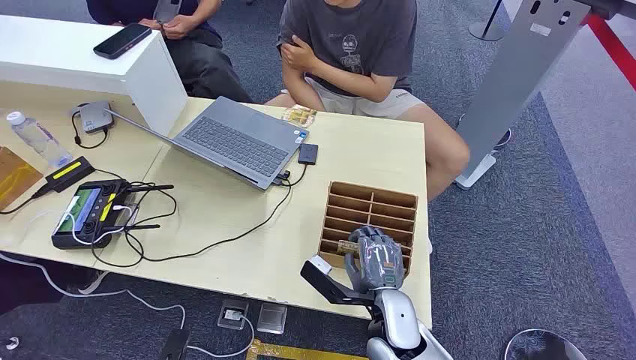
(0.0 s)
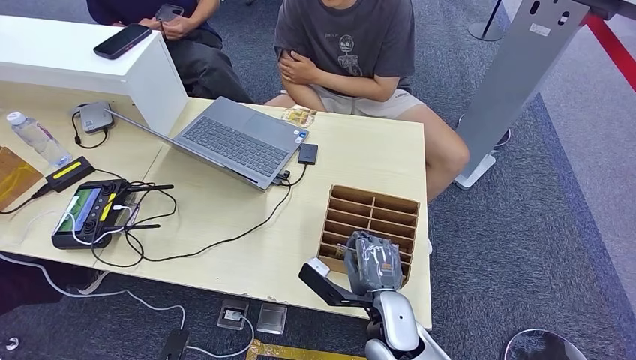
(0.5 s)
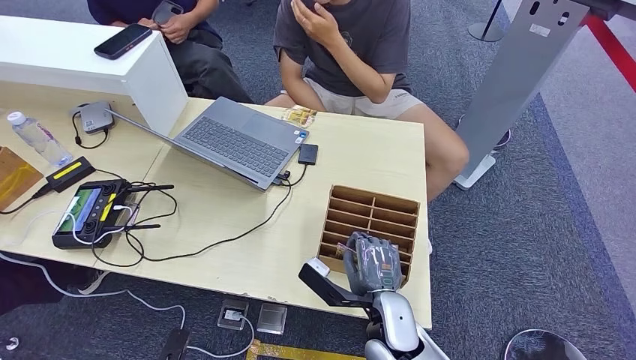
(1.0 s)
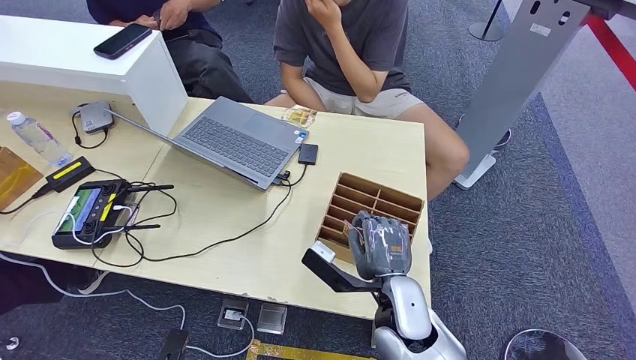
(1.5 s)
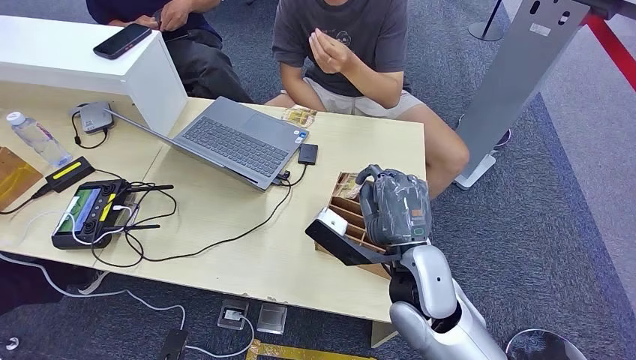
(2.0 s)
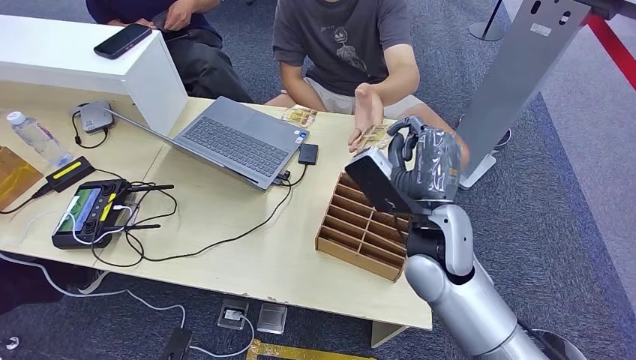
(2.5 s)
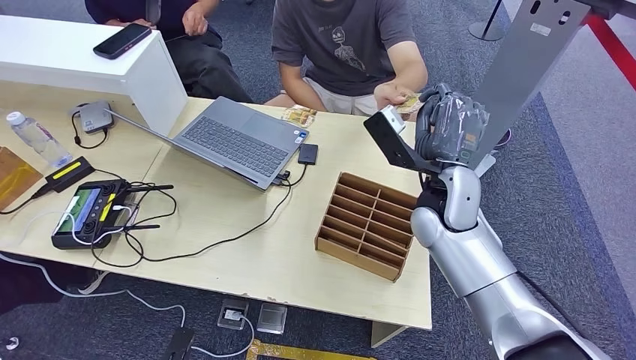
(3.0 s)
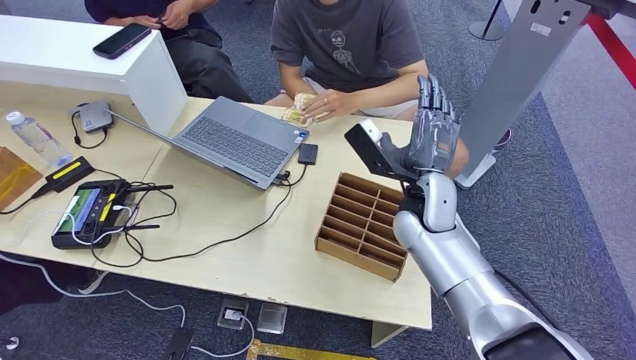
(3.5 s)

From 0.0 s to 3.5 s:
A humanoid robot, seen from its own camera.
Step, from 0.0 s to 2.0 s: Pick up the key card from the card box.
Step, from 2.5 s to 3.5 s: Hand the key card to the target.
From 2.0 s to 3.5 s: The right hand moves forward, approximately 15 cm.

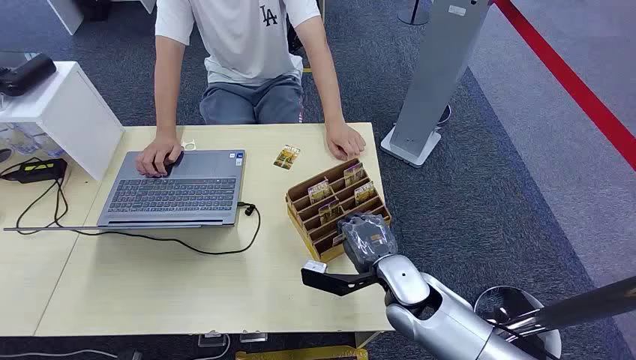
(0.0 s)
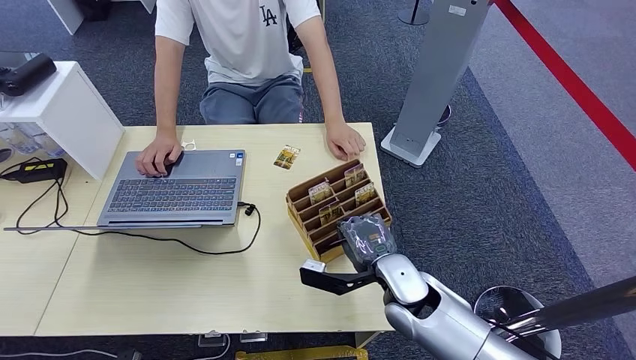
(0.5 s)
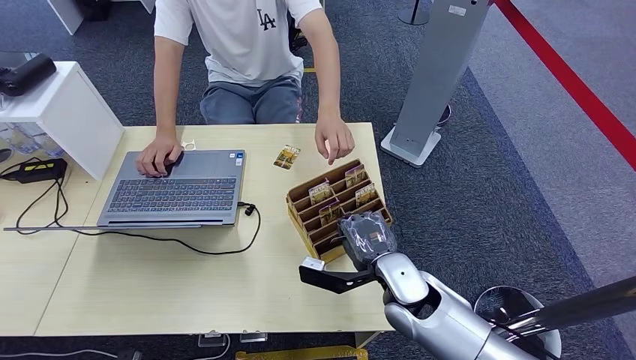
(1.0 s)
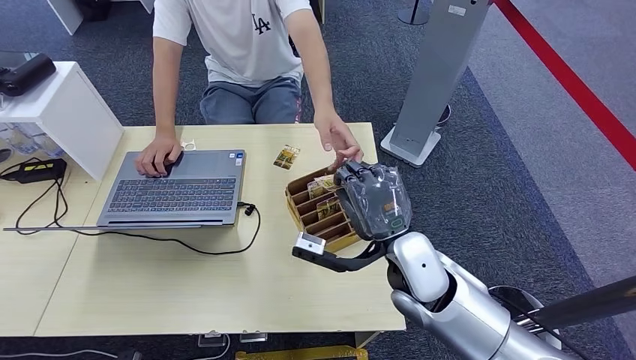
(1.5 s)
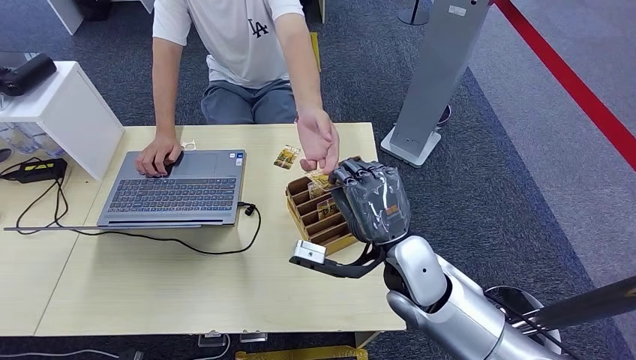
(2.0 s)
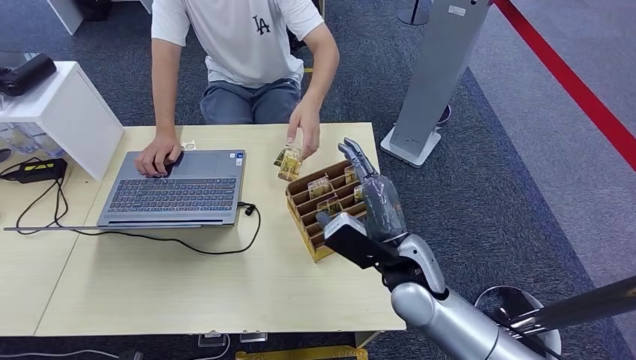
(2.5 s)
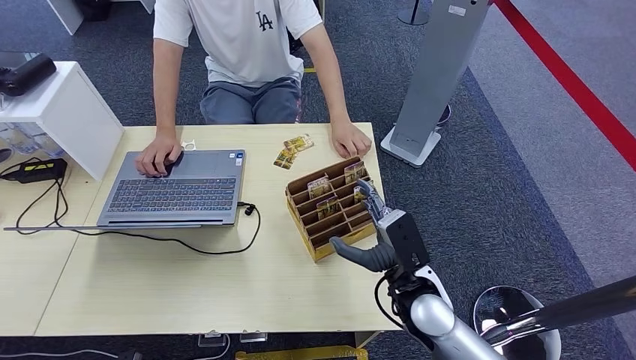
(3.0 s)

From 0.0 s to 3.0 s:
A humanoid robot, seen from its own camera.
Step, from 0.0 s to 1.5 s: Pick up the key card from the card box.
Step, from 2.0 s to 3.0 s: Hand the key card to the target.
From 1.5 s to 3.0 s: The right hand moves downward, about 5 cm.

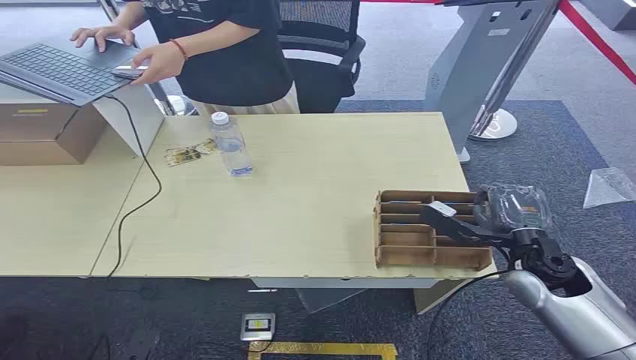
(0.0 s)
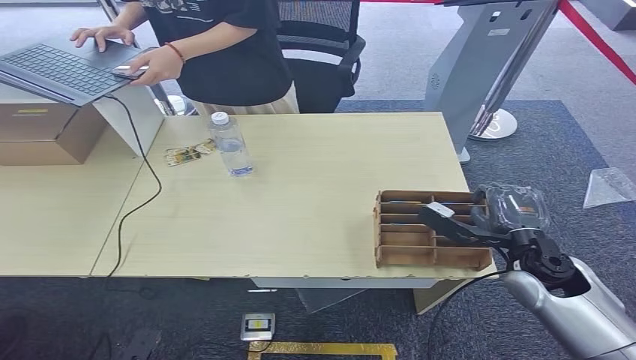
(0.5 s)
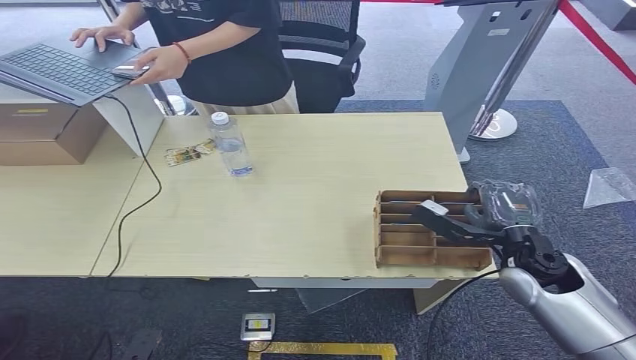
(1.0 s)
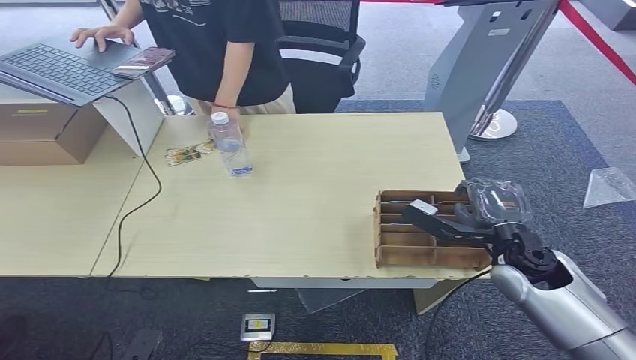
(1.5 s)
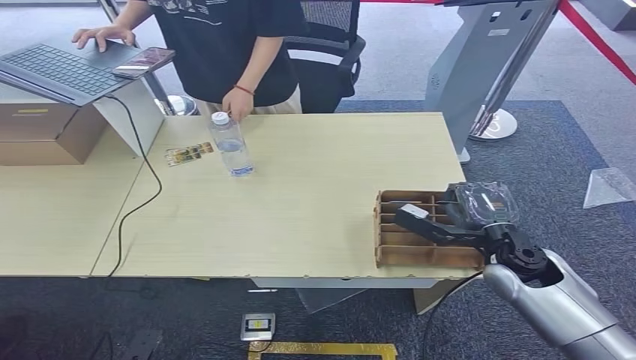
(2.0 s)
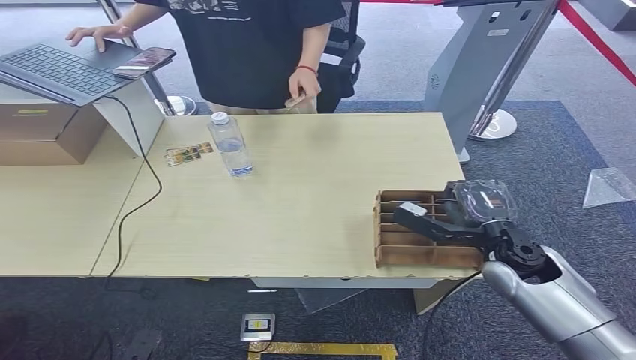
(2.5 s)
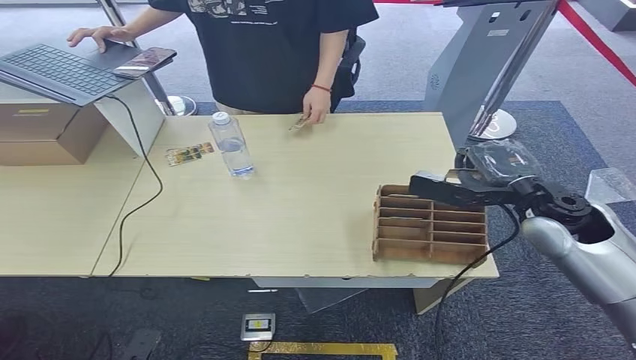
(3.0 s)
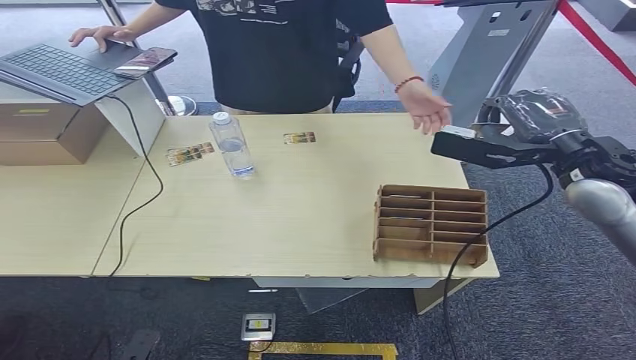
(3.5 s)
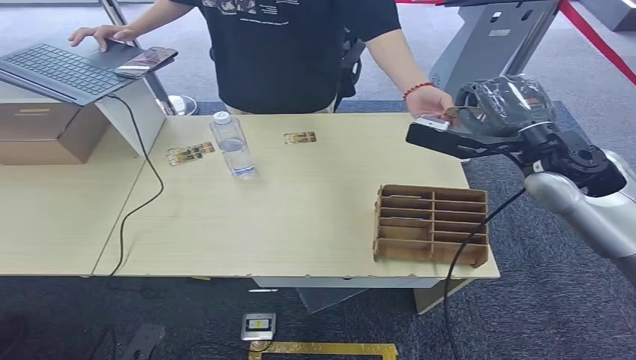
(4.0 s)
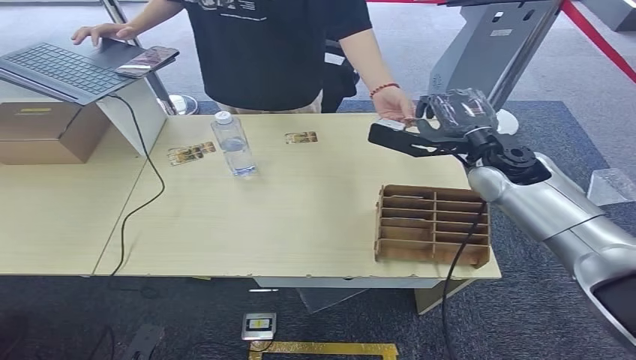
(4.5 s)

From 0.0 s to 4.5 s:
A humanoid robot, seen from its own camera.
Step, from 0.0 s to 3.0 s: Pick up the key card from the card box.
Step, from 3.5 s to 4.5 s: Hand the key card to the target.
